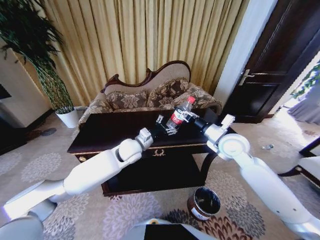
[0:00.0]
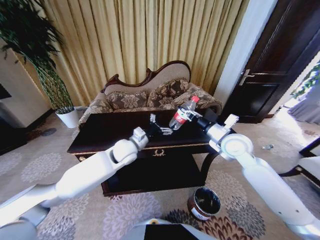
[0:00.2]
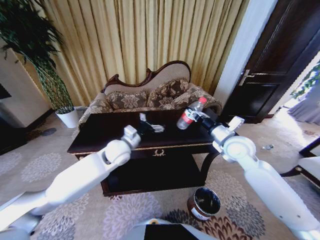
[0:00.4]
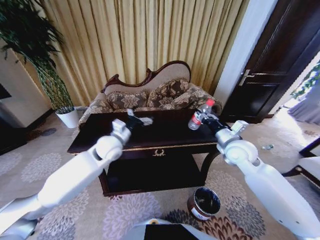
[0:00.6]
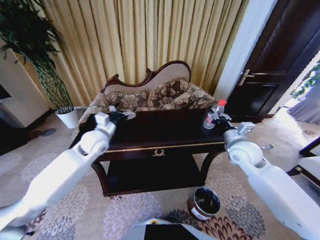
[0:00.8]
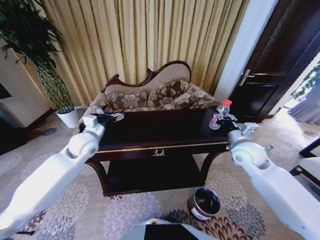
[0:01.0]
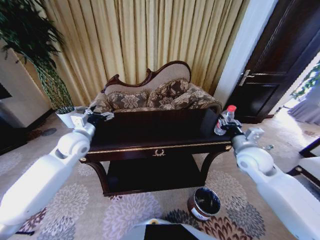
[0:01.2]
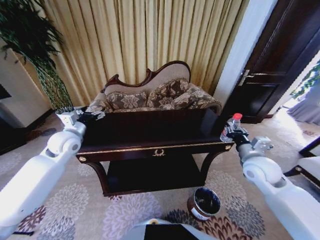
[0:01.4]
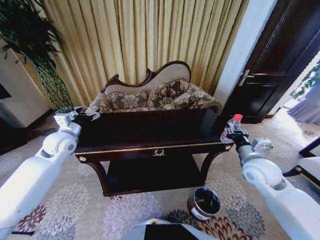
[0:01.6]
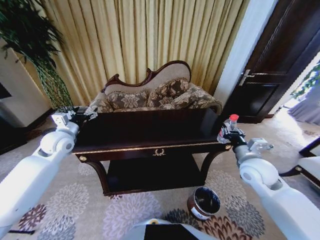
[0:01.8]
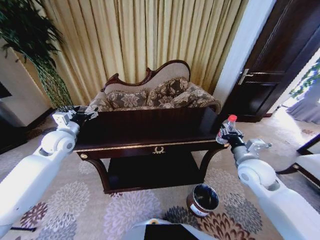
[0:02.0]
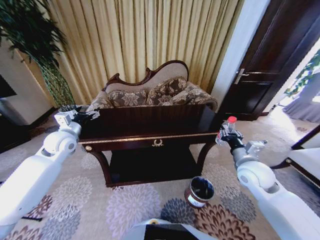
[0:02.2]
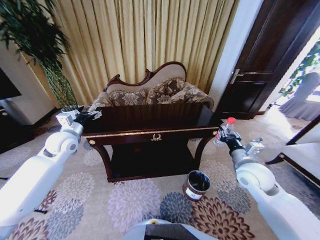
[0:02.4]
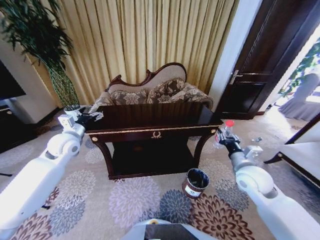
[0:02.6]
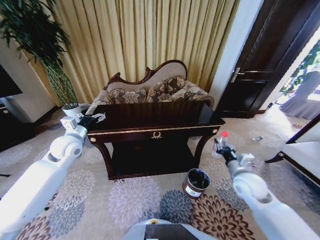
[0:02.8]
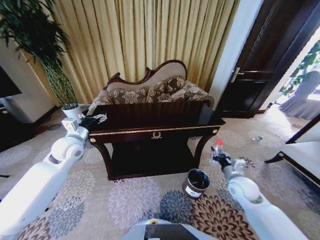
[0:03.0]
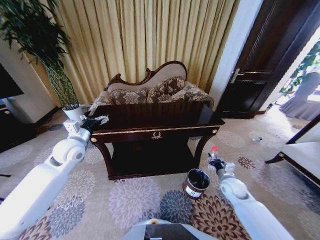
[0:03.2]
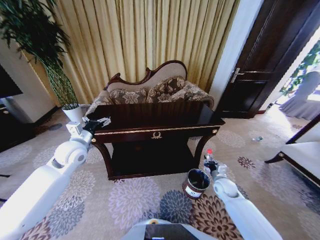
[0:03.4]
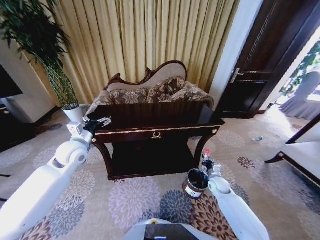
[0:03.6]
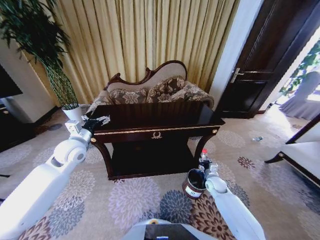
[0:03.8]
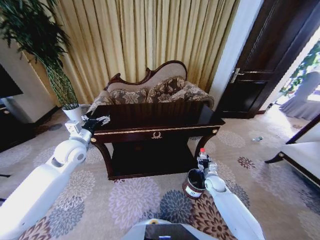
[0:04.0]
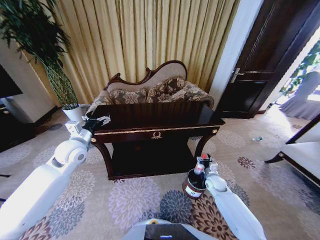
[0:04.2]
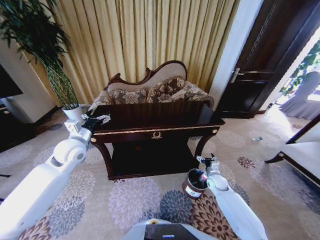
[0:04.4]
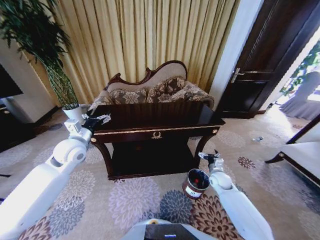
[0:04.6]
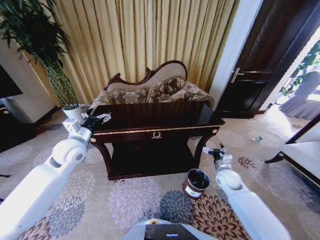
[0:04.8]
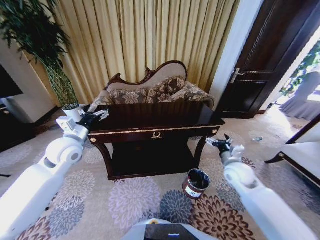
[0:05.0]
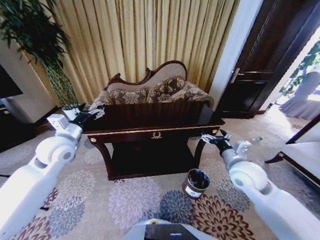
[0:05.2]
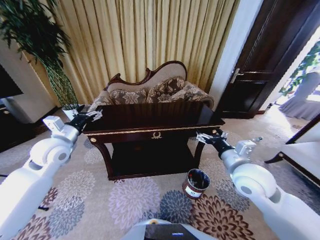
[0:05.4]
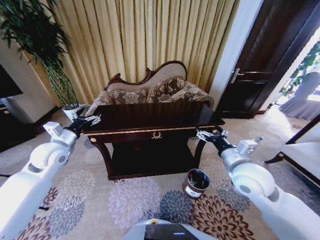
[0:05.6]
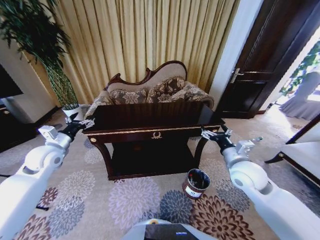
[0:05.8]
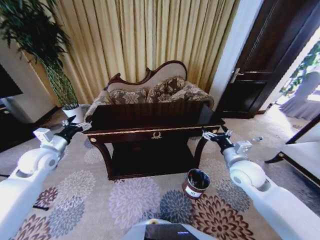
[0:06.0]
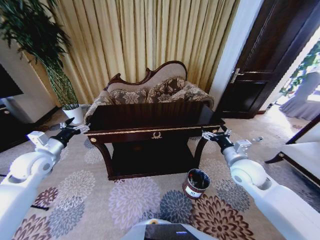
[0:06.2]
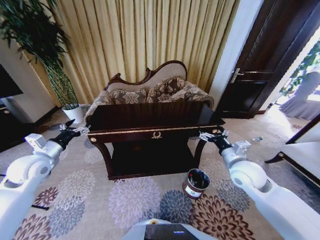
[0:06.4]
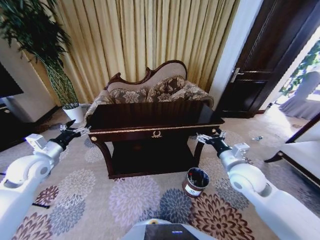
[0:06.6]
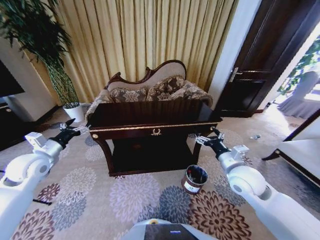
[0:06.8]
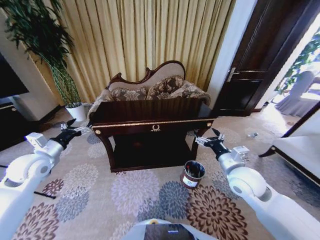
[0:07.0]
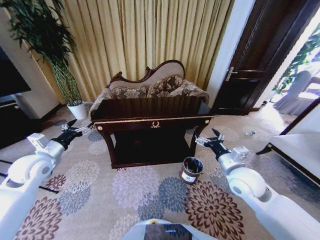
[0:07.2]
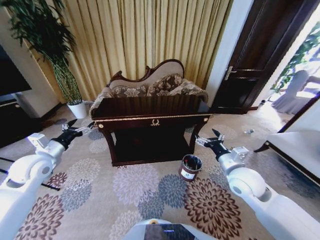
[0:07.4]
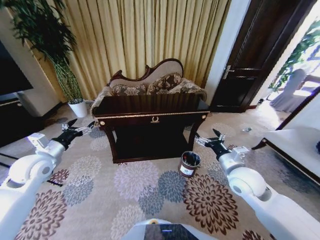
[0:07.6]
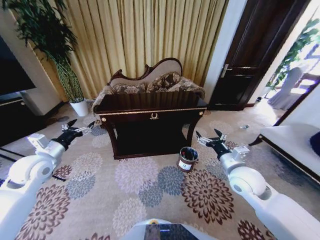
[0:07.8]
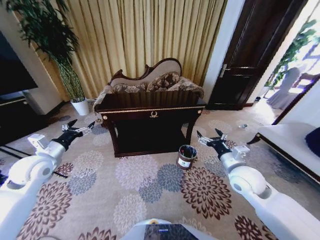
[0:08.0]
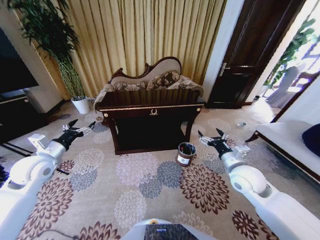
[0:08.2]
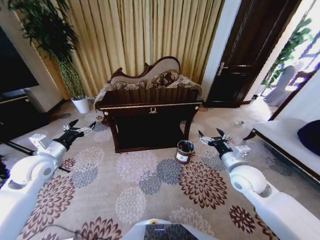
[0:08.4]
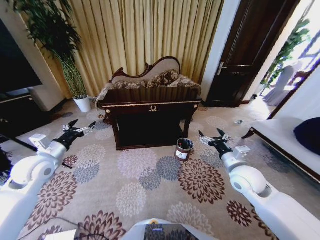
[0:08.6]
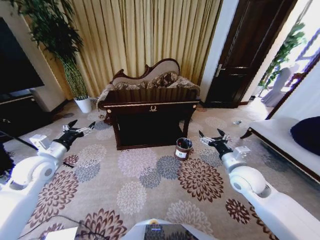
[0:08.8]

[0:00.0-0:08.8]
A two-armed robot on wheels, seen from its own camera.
Task of the whole recording: Move to the front of the table and place the trash on the table into the trash bin.
0:00.0 to 0:01.4: The left gripper shifts roughly 25 cm to the left. Meanwhile the right gripper heads to the right and backward, covering some 10 cm.
0:01.4 to 0:03.0: The right gripper travels downward by about 15 cm.
0:03.0 to 0:04.4: The right gripper shifts roughly 15 cm downward and forward, and opens.
0:04.4 to 0:05.8: The left gripper moves to the left, about 10 cm; the right gripper is displaced upward by some 25 cm.

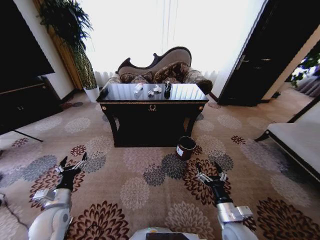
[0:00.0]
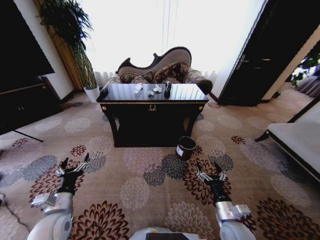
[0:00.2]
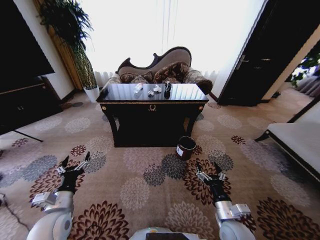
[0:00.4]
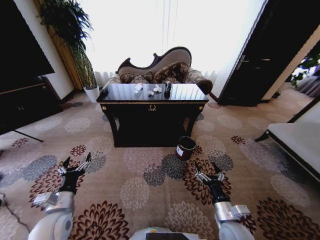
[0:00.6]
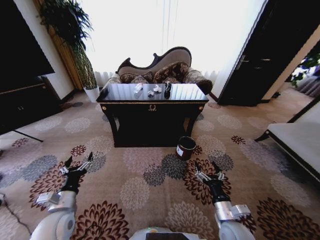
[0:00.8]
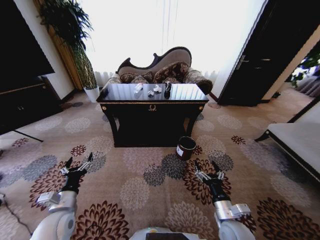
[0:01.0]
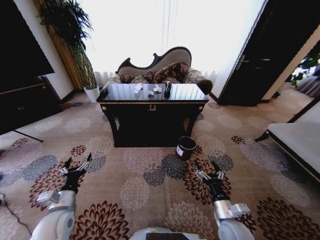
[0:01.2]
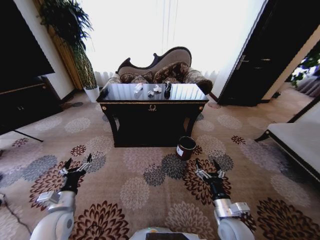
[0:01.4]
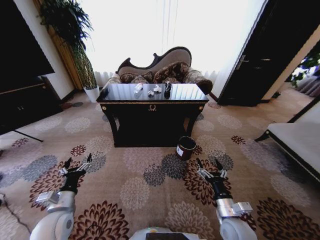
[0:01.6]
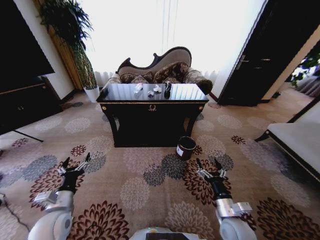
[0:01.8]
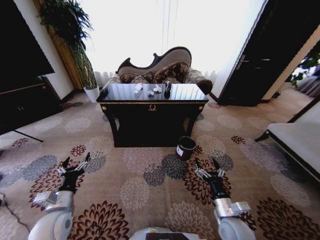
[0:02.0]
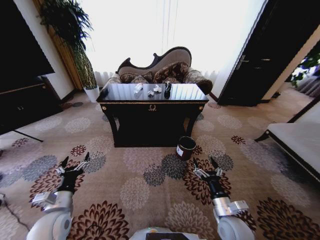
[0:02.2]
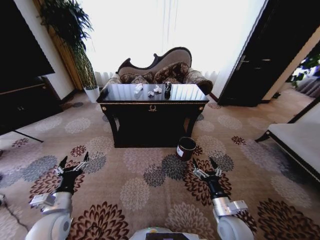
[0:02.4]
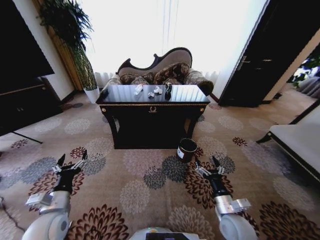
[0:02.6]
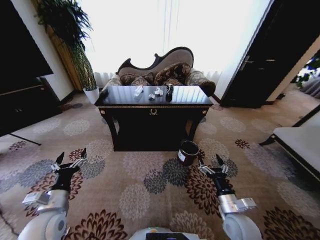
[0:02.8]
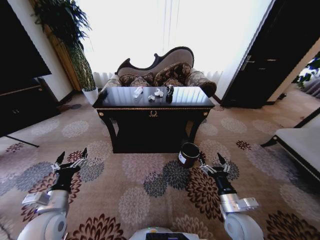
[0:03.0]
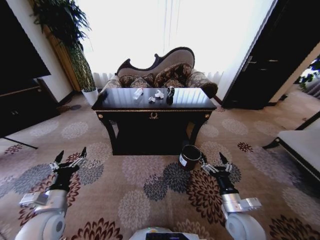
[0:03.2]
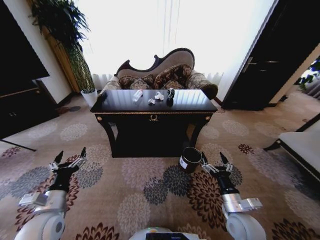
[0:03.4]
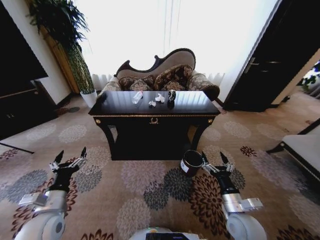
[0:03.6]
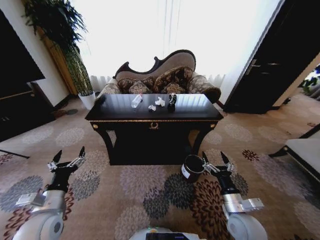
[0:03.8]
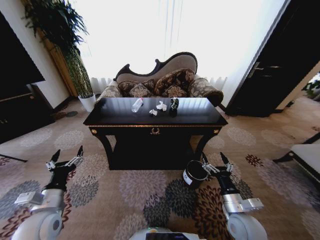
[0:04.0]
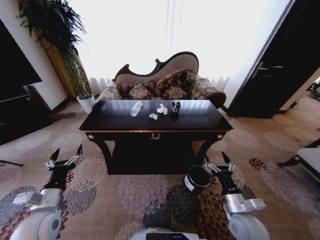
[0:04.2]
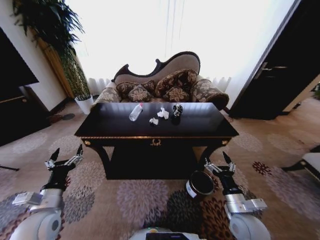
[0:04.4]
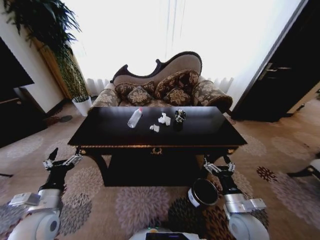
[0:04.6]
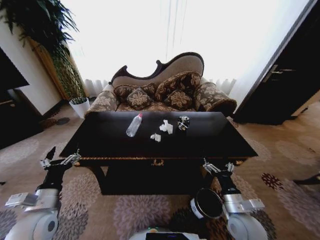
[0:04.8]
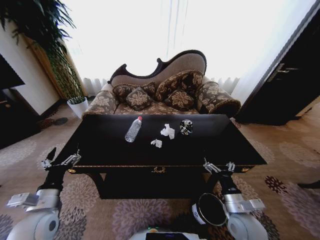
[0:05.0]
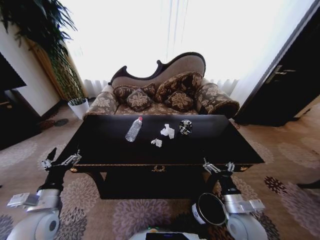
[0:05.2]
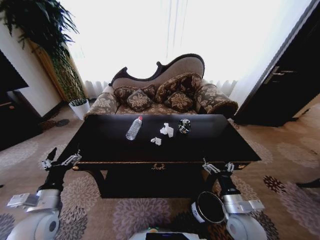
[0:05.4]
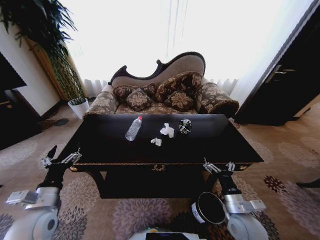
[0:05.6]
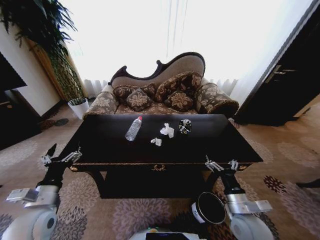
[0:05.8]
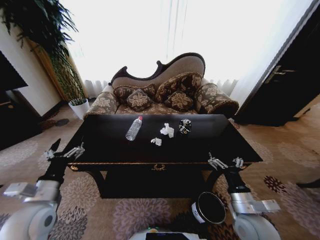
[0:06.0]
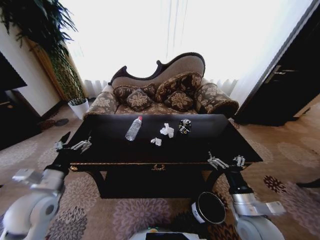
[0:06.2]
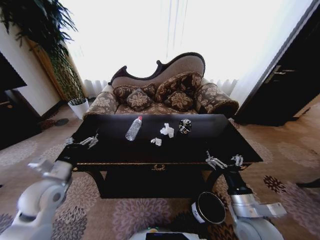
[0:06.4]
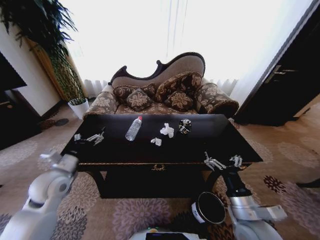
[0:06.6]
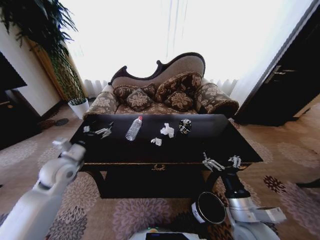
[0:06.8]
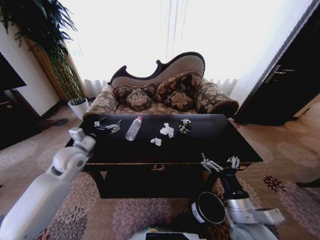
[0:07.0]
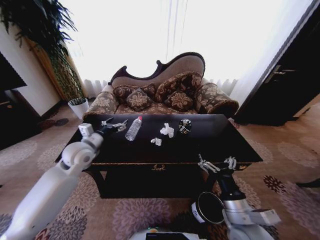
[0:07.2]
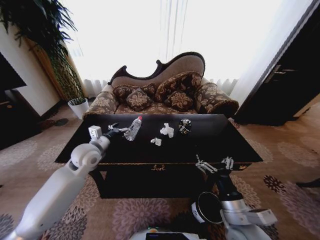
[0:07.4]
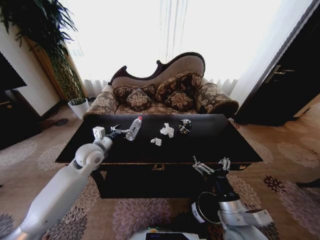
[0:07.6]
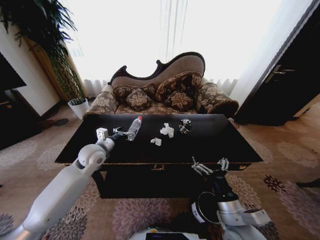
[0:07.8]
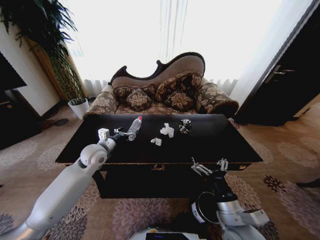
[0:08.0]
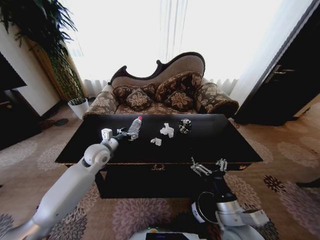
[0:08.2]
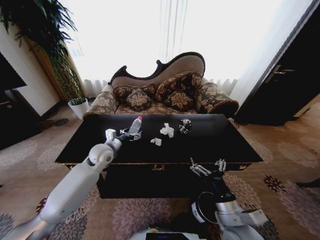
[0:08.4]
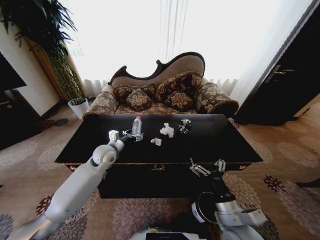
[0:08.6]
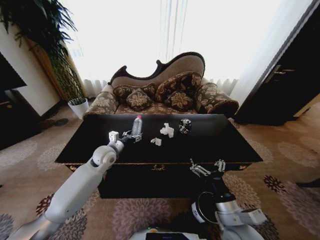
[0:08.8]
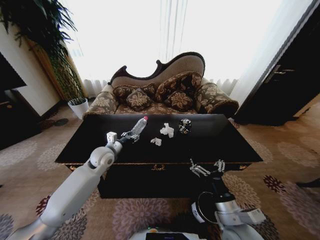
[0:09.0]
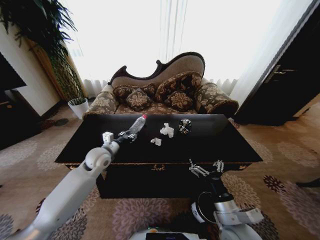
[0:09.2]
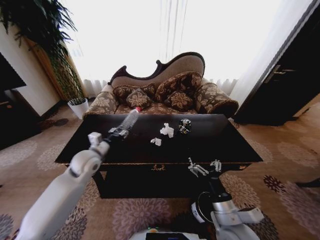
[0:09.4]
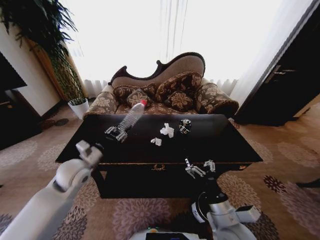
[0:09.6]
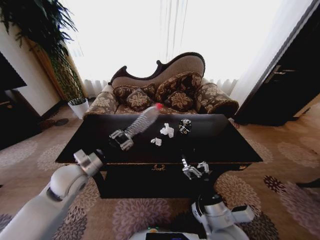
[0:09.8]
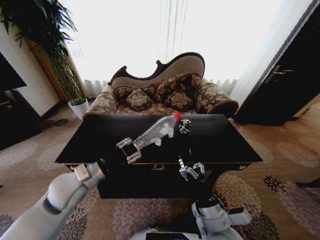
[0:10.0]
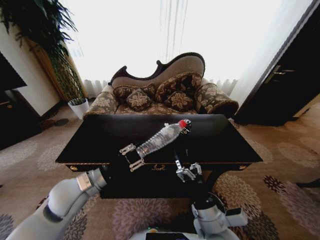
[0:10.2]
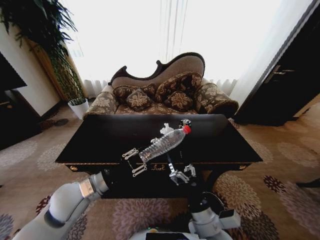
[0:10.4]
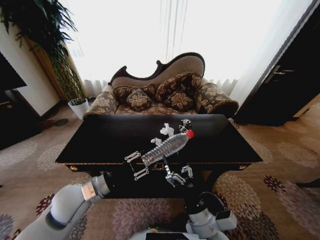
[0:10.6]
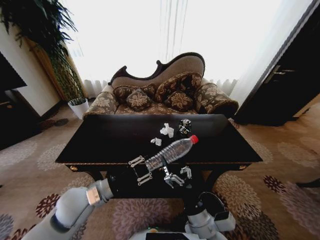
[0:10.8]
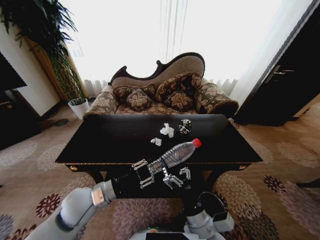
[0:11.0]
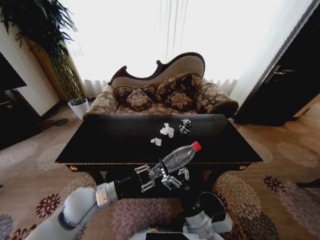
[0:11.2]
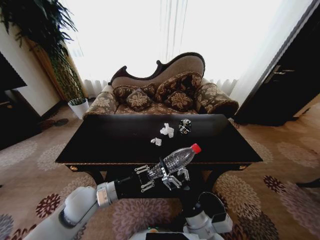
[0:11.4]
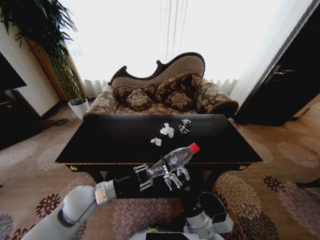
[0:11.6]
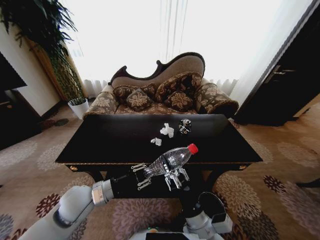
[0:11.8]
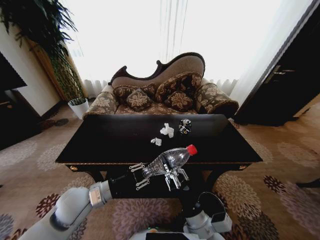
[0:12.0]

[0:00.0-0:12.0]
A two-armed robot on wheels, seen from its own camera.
Task of the whole recording: Move to the front of the table and place the trash on the table into the trash bin.
0:06.0 to 0:07.6: The left gripper goes about 20 cm forward and to the right. The right gripper is displaced to the left by about 5 cm.
0:07.6 to 0:09.0: The left gripper ends up approximately 5 cm from where it was, and closes.
0:09.0 to 0:10.4: The left gripper travels backward by about 20 cm, and closes its fingers. The right gripper moves to the left, some 10 cm.
0:10.4 to 0:12.0: The right gripper closes.

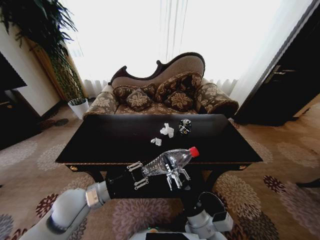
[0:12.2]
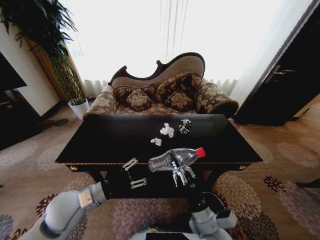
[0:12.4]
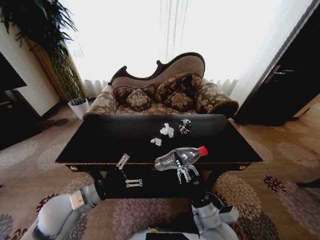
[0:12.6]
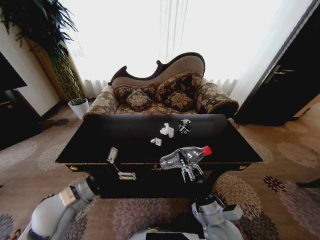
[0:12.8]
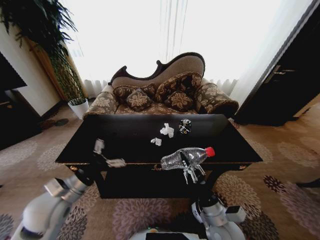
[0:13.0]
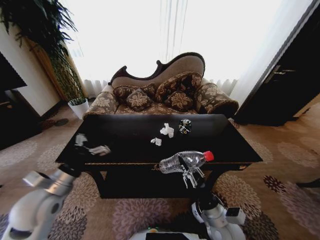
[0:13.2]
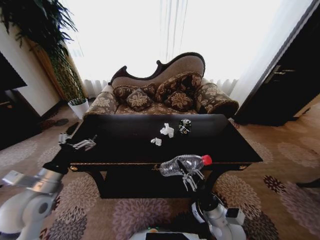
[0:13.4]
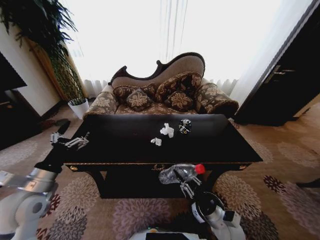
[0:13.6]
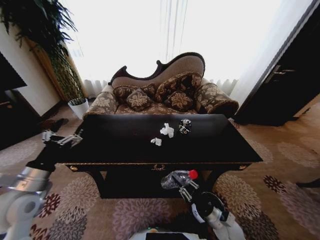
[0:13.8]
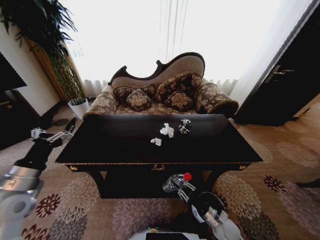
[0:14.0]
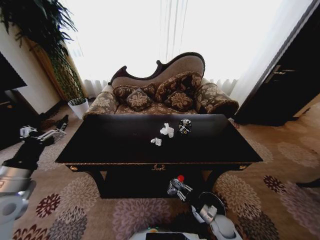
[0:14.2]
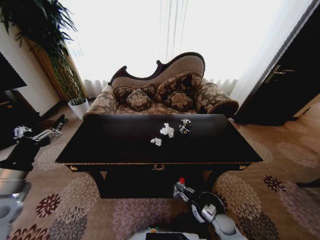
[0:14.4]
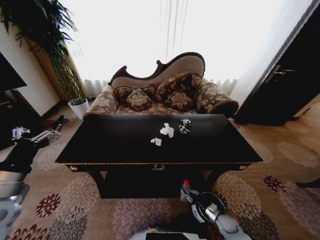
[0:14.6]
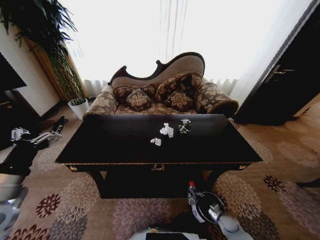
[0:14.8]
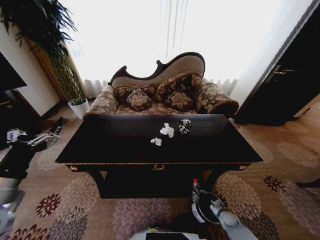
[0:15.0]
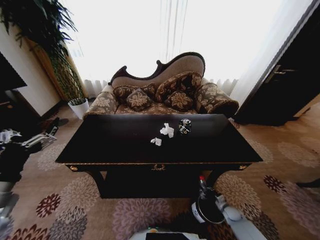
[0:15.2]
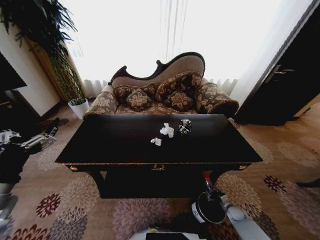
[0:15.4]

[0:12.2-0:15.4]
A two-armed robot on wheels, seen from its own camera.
Task of the whole recording: Move to the front of the table and place the trash on the table into the trash bin.
0:12.2 to 0:13.8: The right gripper is displaced downward and to the right by roughly 20 cm. Meanwhile the left gripper shifts about 15 cm to the left, and opens its fingers.
0:13.8 to 0:15.4: The right gripper moves to the right, downward and forward, about 25 cm. Meanwhile the left gripper shifts roughly 5 cm backward.
